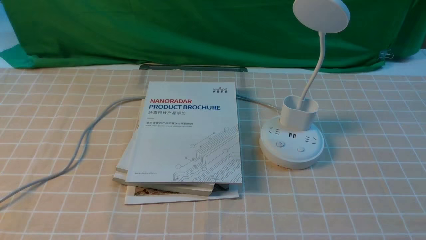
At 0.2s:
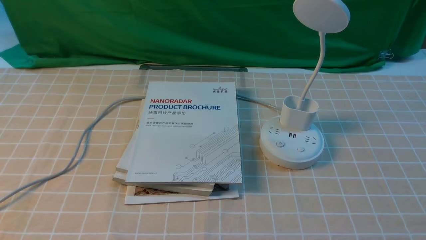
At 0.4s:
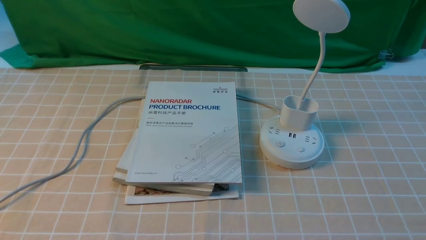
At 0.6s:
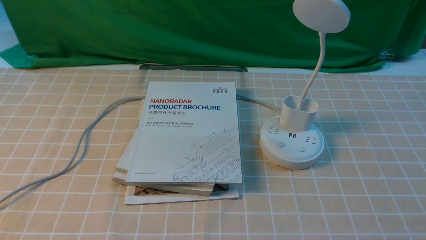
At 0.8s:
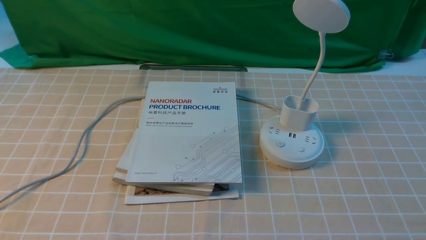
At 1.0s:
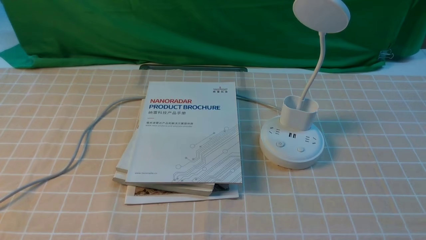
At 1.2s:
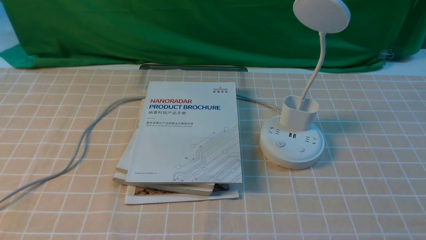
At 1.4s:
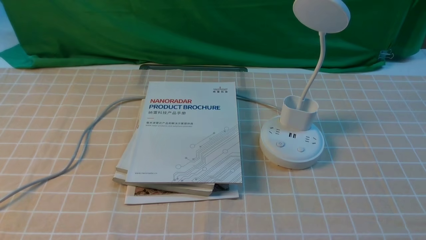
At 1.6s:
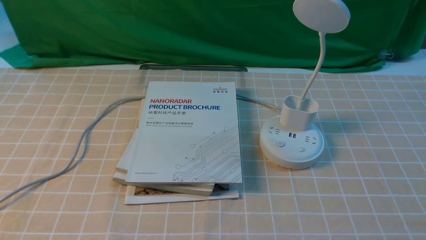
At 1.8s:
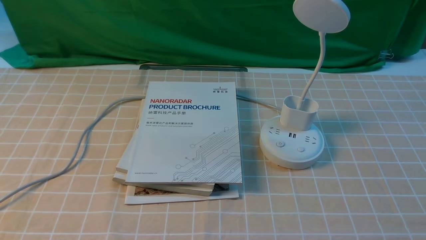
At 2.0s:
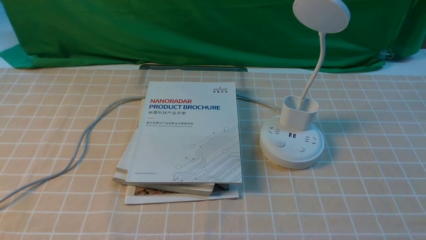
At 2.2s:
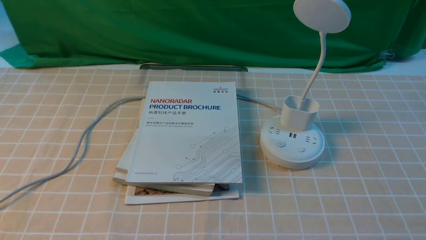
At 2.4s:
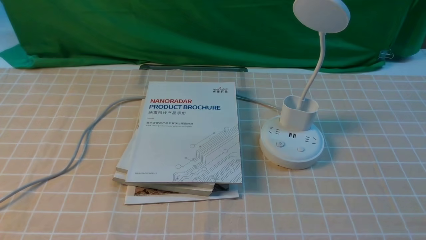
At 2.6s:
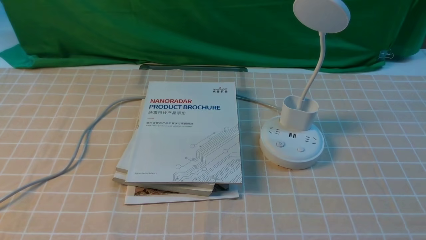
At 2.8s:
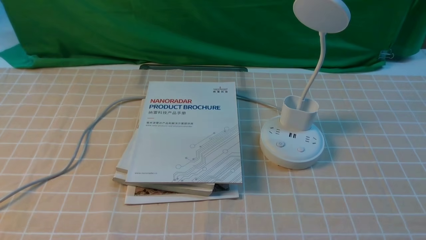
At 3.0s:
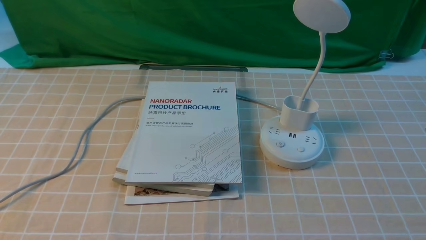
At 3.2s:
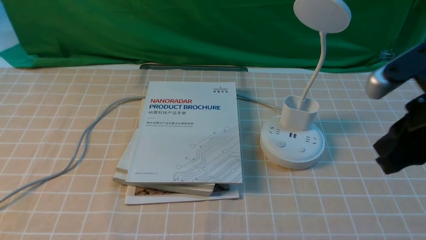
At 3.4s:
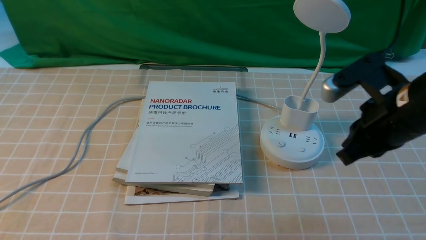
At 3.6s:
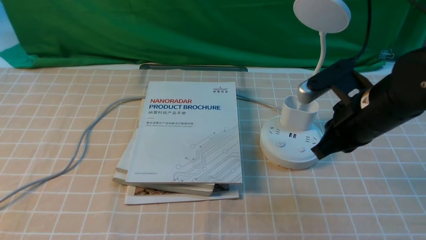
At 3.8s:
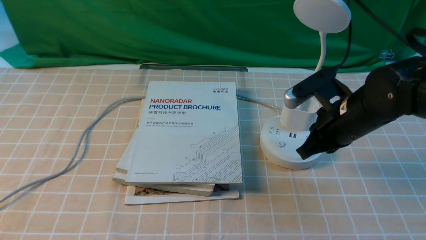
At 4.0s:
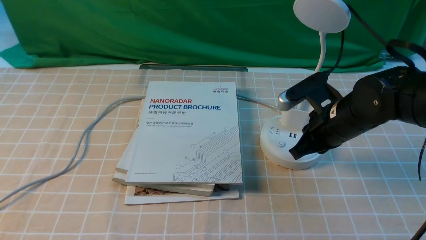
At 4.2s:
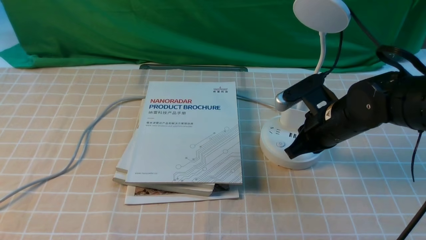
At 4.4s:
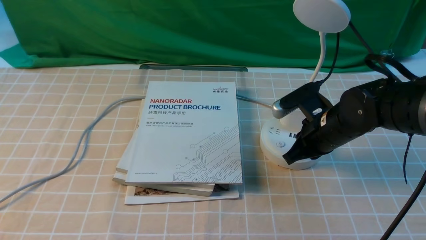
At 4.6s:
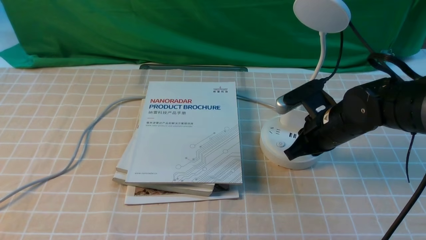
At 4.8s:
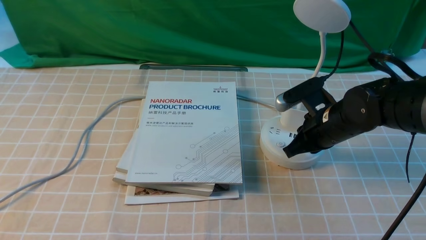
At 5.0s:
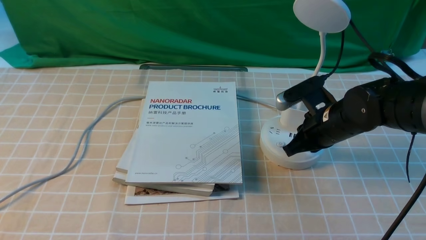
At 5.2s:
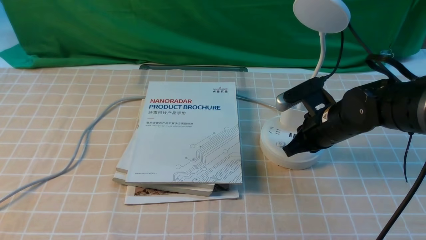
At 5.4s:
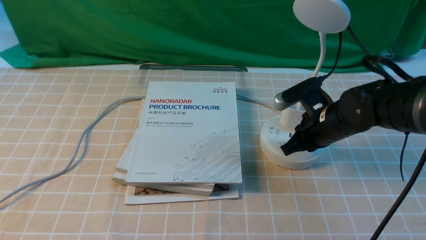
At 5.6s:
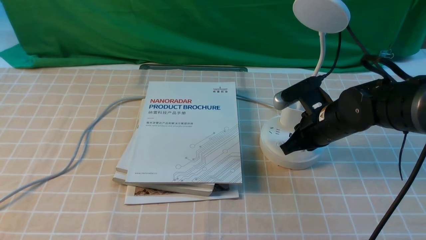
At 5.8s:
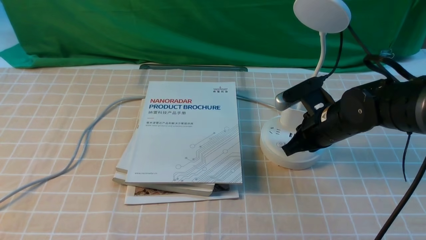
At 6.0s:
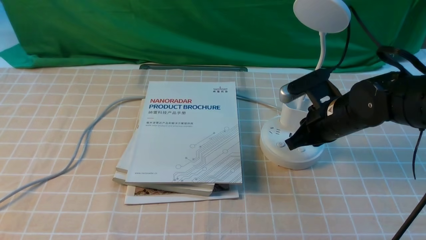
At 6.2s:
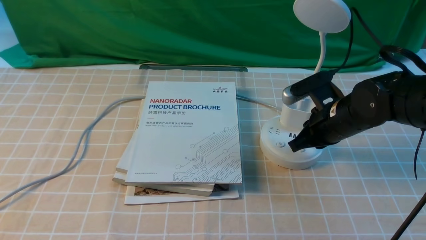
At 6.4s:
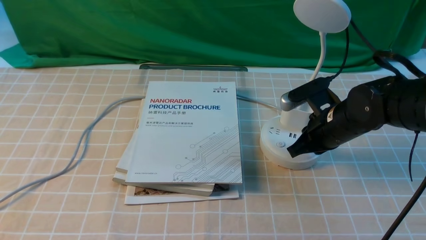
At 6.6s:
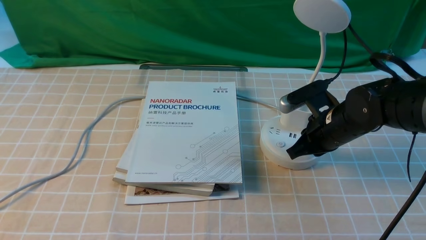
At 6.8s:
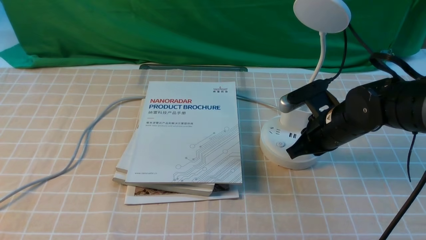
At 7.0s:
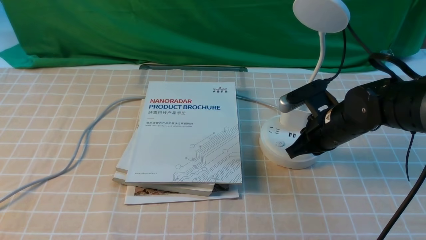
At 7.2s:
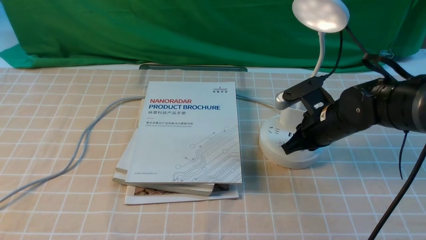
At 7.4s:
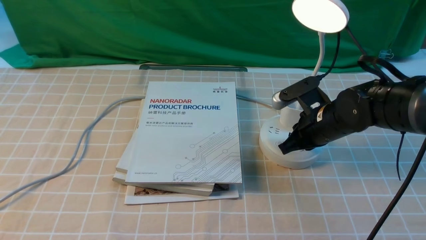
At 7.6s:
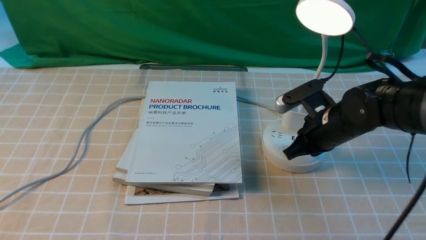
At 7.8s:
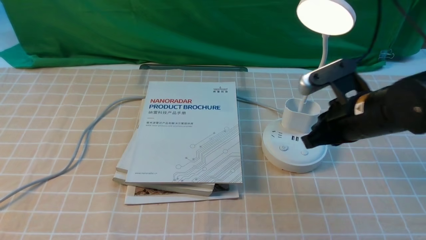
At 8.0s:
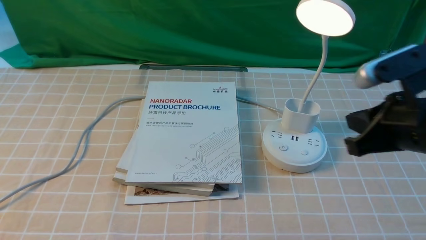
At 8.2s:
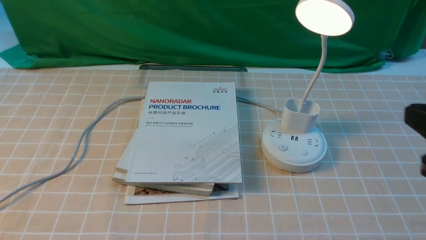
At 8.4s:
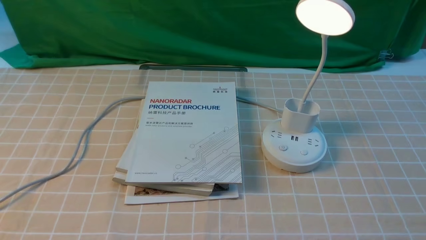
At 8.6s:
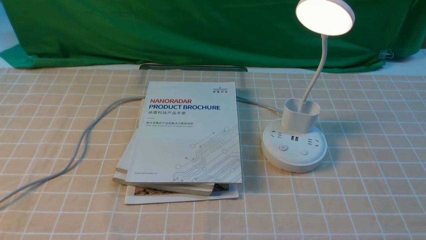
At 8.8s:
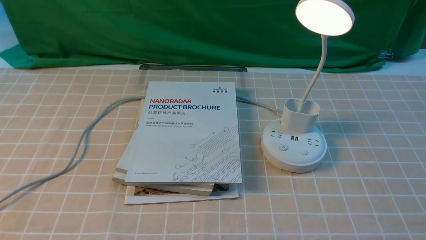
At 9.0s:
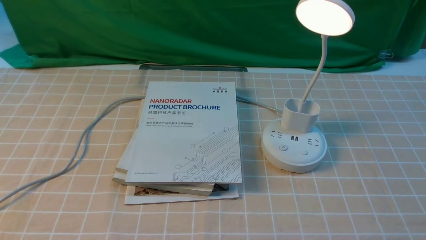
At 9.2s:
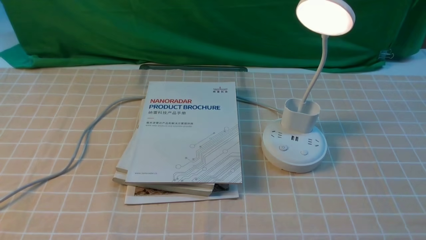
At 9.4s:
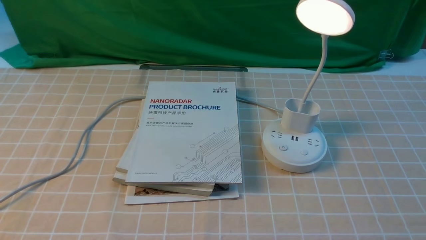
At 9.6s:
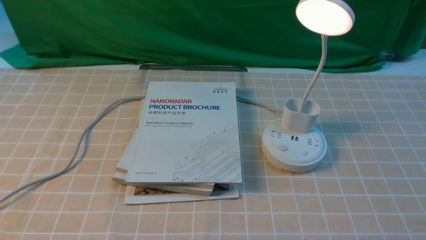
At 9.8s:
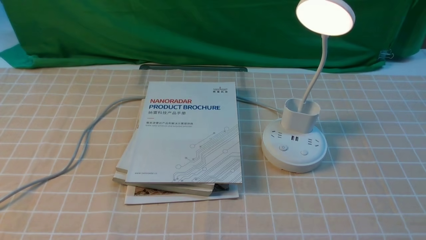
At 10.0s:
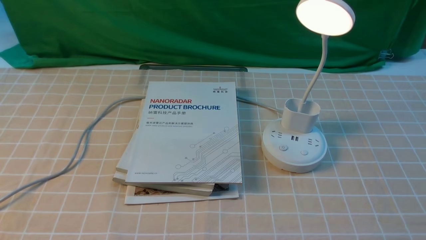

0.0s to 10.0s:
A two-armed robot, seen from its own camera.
Step, 0.0s to 7.8s: use the right arm to press the button switch on the lamp holder.
2.8s to 4.2s: The right gripper heads forward, downward and to the left, covering roughly 30 cm.
4.2s to 7.2s: There are only small adjustments of the grippers.
7.2s to 8.6s: The right gripper heads backward, upward and to the right, covering some 35 cm.

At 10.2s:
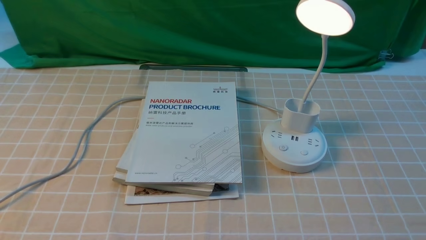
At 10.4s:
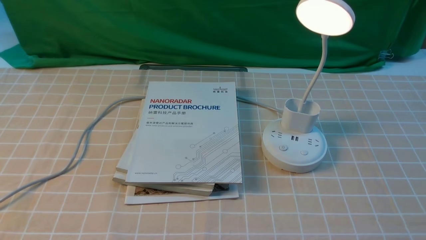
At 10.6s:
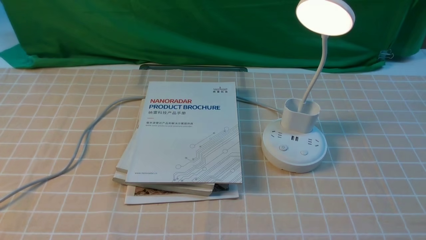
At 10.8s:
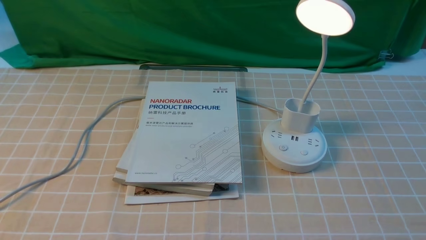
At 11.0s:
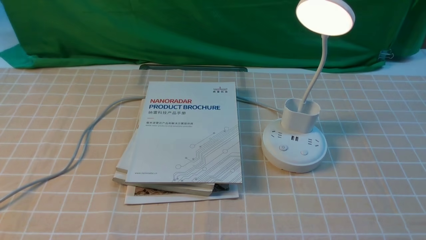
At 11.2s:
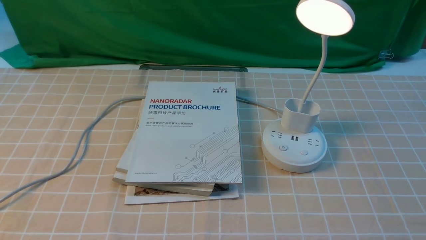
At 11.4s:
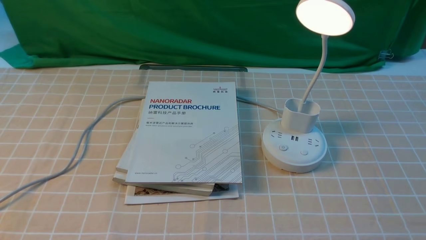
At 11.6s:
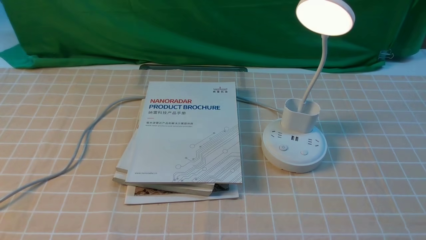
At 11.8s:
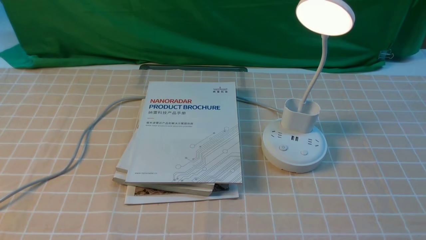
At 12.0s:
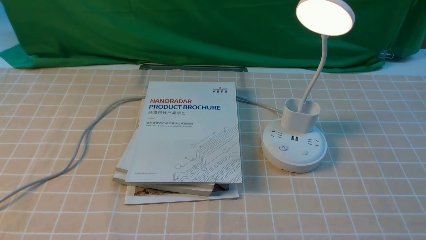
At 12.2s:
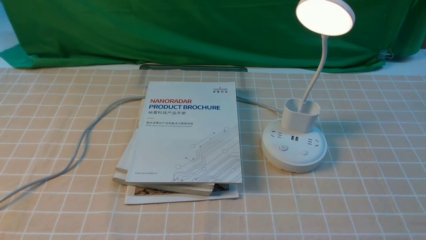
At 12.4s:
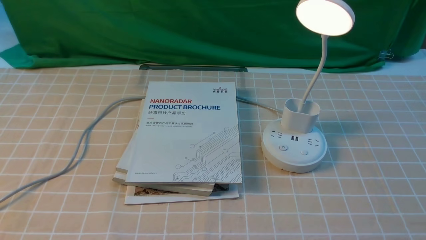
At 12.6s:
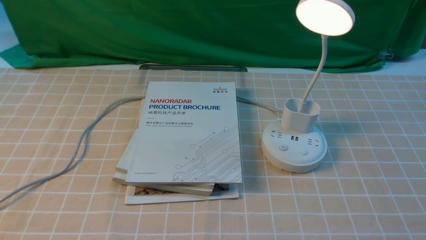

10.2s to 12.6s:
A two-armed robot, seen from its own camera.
10.2s to 12.6s: Neither gripper changes place.

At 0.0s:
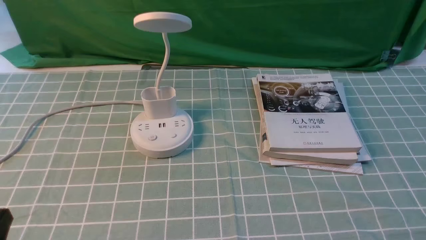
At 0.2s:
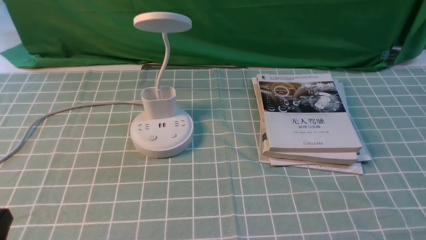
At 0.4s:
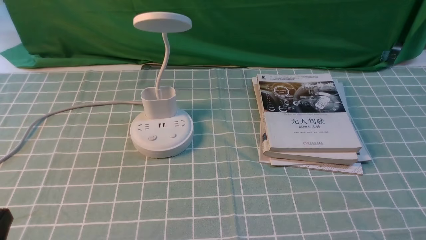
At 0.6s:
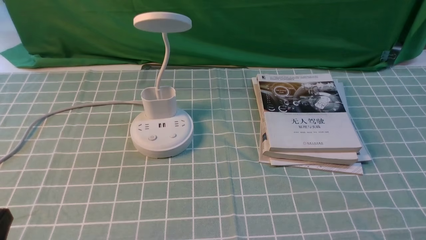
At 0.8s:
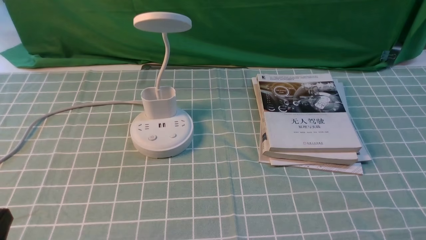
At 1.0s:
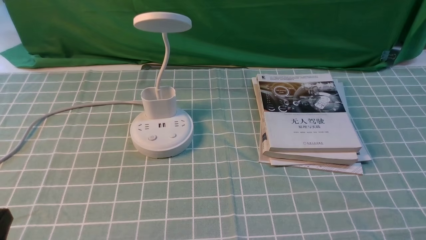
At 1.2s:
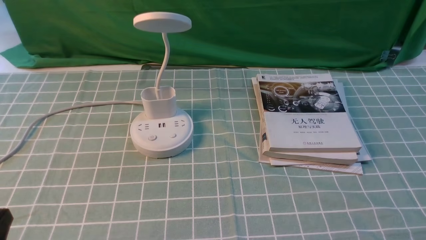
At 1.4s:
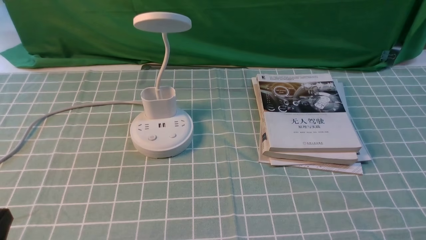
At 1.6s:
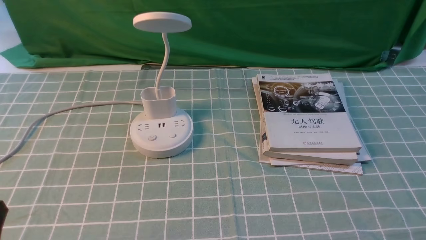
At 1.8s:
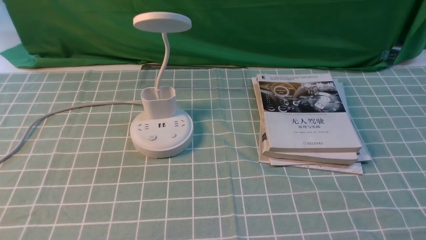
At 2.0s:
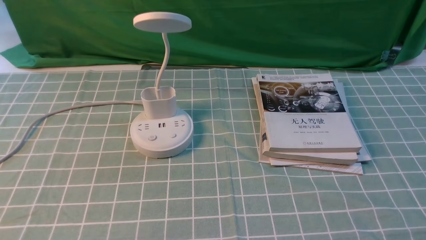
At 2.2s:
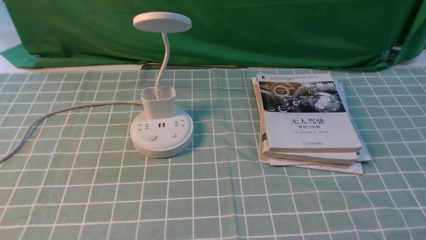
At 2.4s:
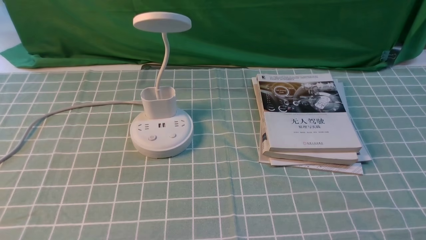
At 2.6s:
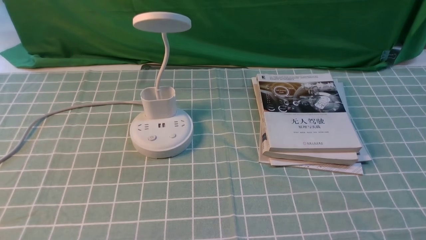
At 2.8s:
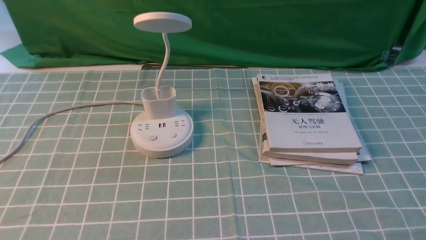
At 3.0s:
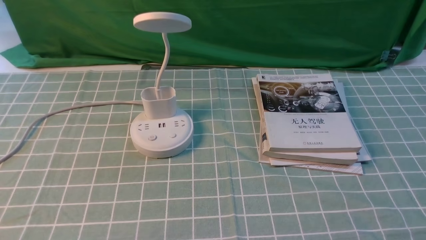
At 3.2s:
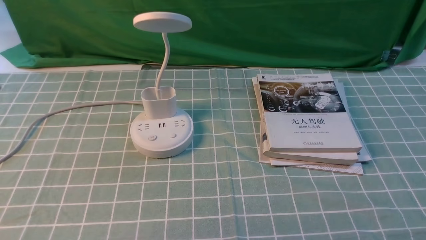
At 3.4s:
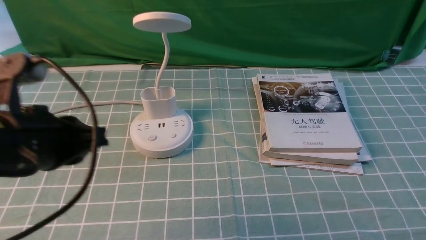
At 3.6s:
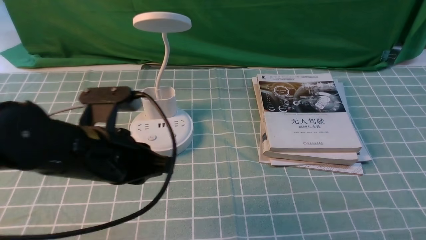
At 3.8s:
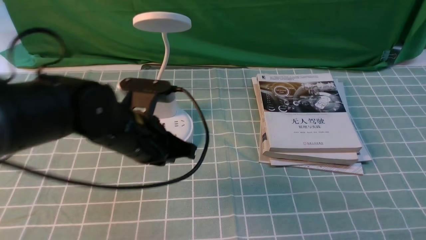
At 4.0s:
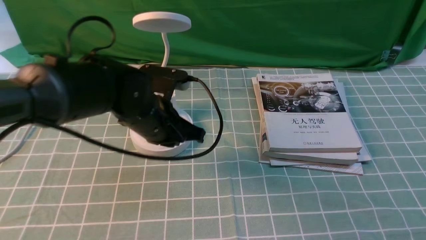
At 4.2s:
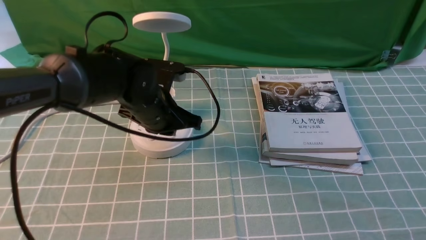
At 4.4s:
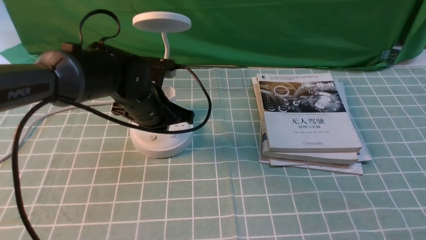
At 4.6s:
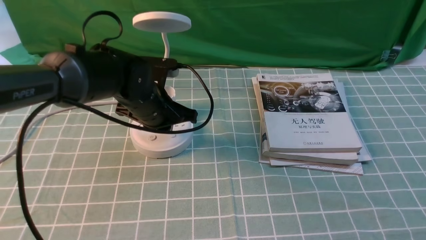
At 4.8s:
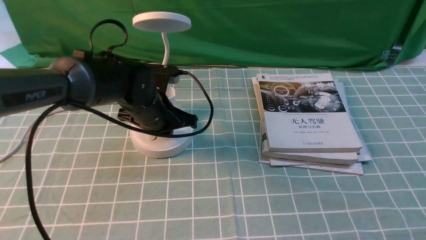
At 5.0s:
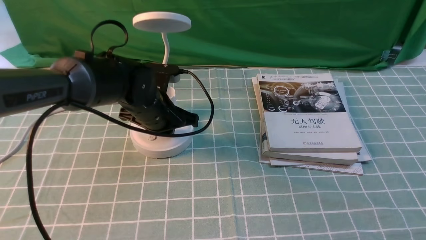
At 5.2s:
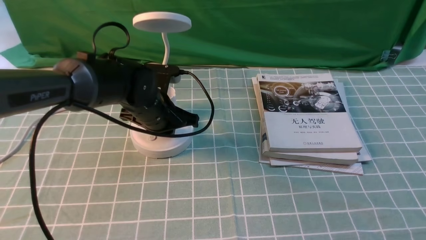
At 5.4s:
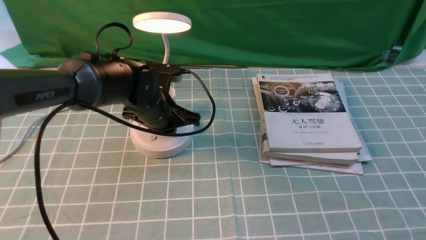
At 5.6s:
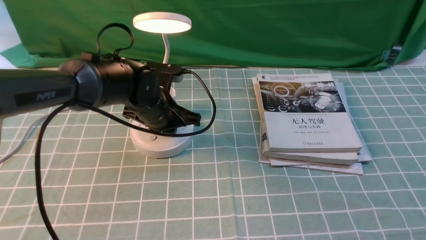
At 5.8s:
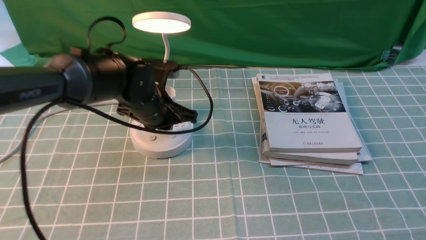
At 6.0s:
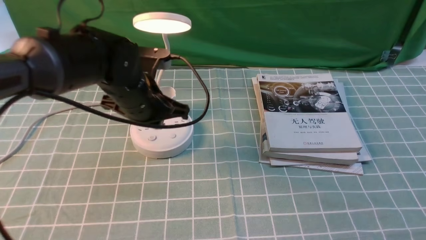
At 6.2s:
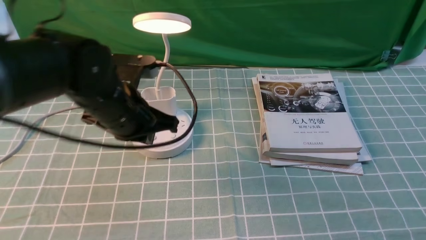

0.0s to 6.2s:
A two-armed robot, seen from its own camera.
Step, 0.0s to 5.6s: use the left arm to press the button switch on the lamp holder.
3.2s to 4.6s: The left gripper shifts approximately 35 cm forward, downward and to the right.
4.6s to 6.2s: The left gripper changes place by some 5 cm.
